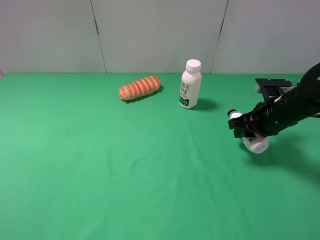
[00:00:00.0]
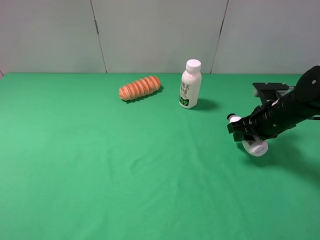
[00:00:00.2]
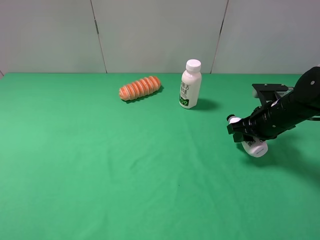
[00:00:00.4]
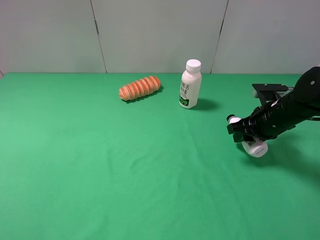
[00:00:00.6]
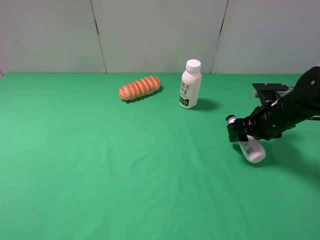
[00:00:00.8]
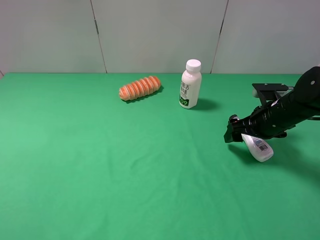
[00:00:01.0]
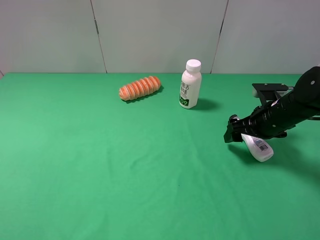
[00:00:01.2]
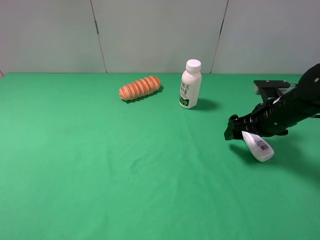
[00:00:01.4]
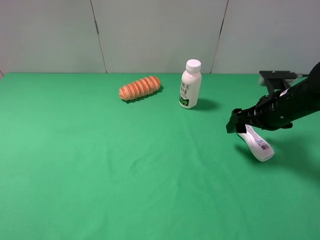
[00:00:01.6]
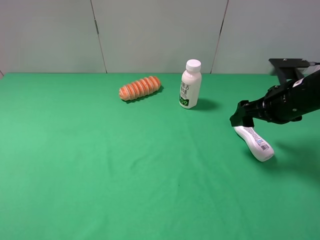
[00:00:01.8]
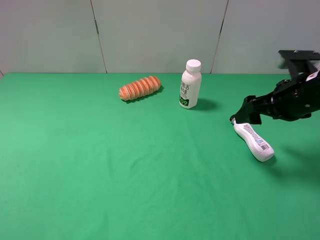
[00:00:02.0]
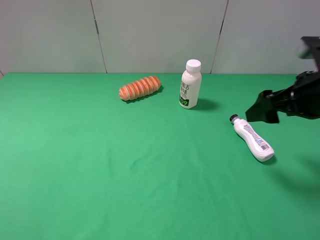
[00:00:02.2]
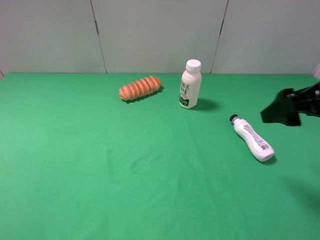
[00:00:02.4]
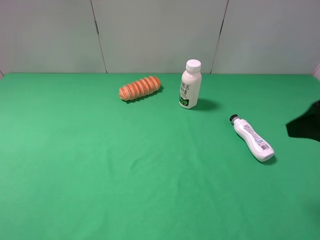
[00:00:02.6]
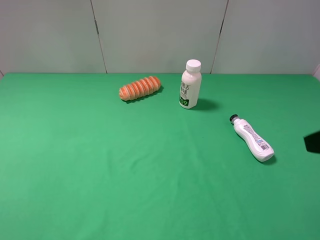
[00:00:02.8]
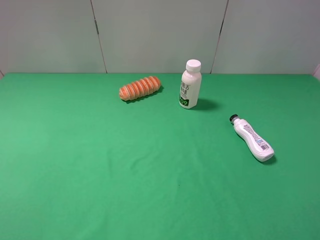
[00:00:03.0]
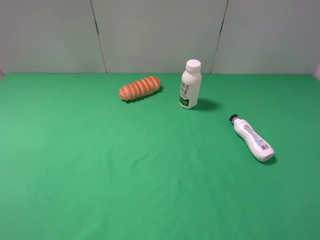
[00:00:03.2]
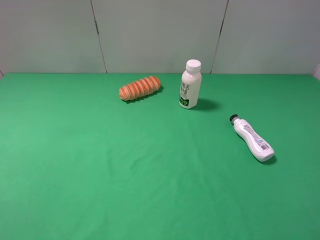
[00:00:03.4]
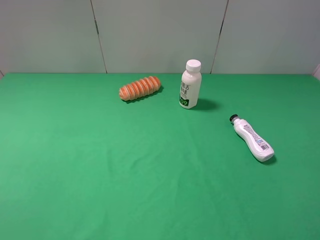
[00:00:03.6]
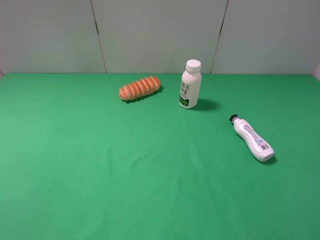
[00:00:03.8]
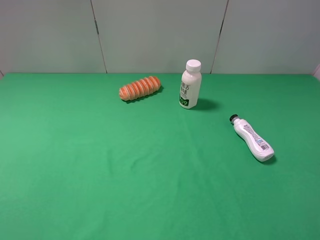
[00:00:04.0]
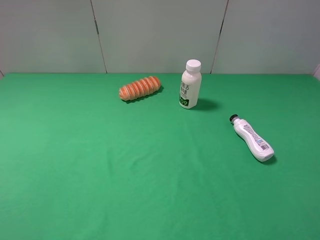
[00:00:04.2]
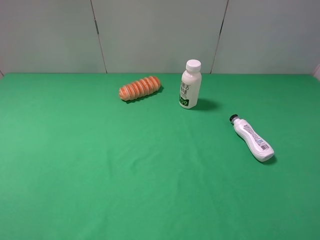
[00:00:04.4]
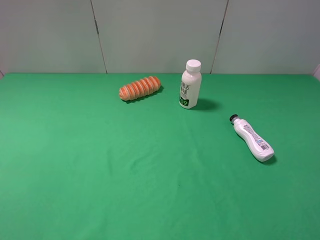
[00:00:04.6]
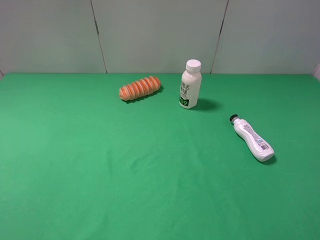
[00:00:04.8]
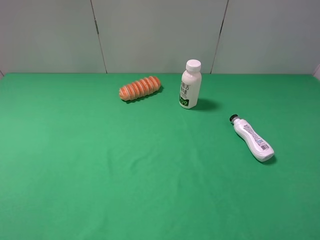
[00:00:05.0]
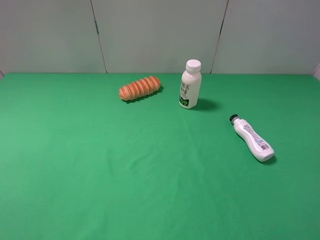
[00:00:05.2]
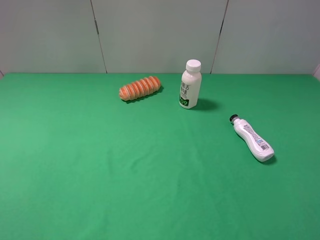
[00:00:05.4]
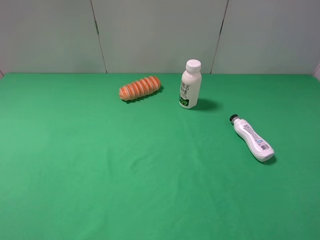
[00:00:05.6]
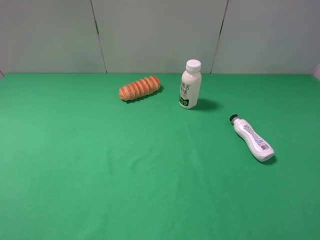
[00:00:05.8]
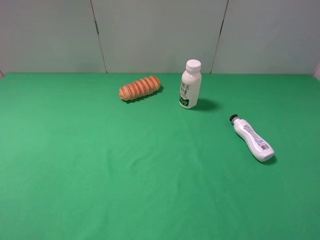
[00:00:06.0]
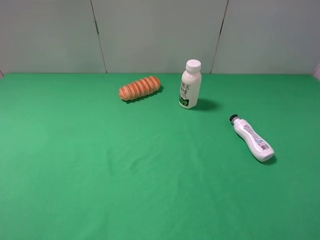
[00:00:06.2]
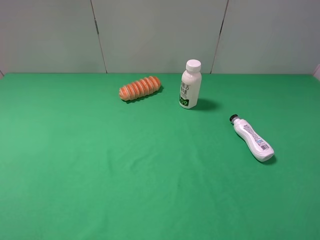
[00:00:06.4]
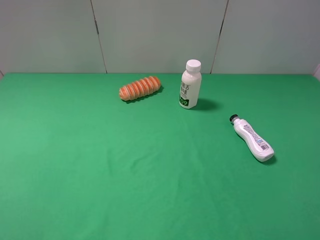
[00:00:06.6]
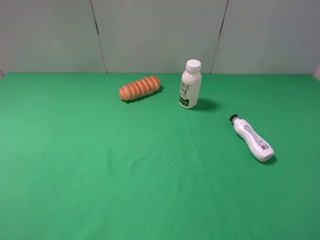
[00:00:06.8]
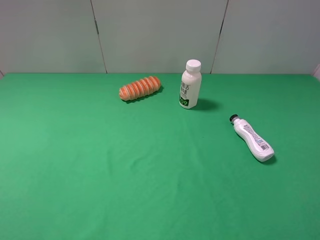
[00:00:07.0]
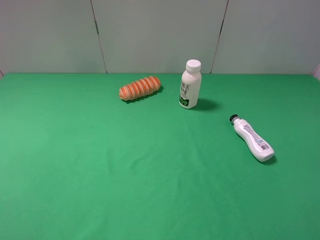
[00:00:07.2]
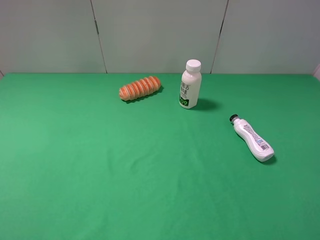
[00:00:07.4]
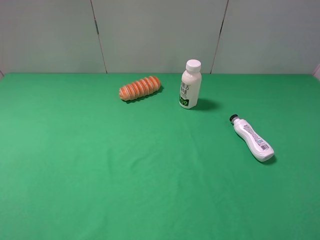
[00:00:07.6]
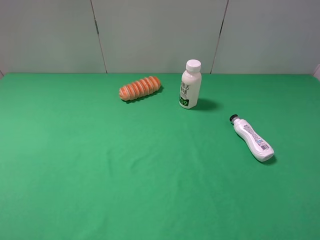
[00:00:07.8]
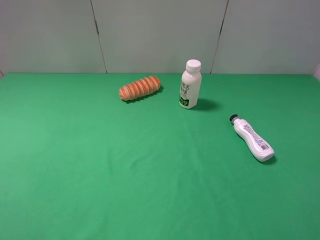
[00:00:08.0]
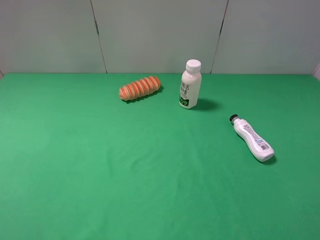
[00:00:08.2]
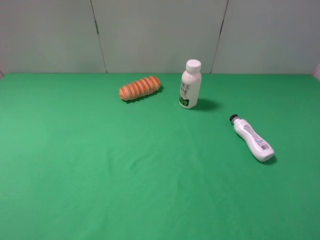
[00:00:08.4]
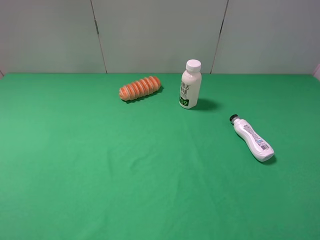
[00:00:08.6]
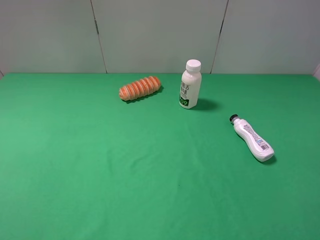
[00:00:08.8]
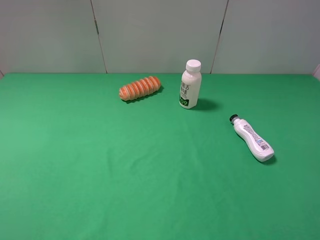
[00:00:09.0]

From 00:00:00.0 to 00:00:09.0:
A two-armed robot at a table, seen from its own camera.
Task of the whole recording: use the left gripper to pick up the item and transfer it from the left gripper to the right gripper.
From 00:00:00.0 to 00:00:01.6: The right gripper opens its fingers.
From 00:00:01.6 to 00:00:03.0: The right gripper goes approximately 25 cm backward and upward.
From 00:00:06.0 to 00:00:09.0: Both grippers stay about where they are.
